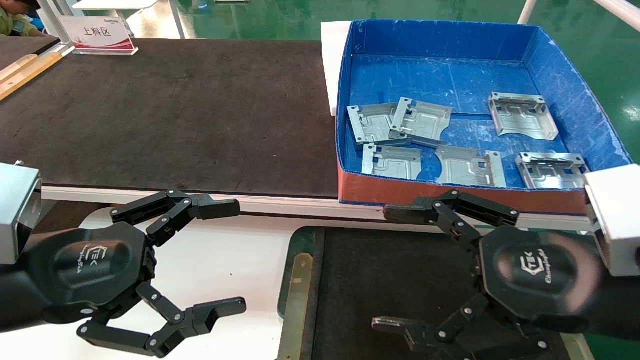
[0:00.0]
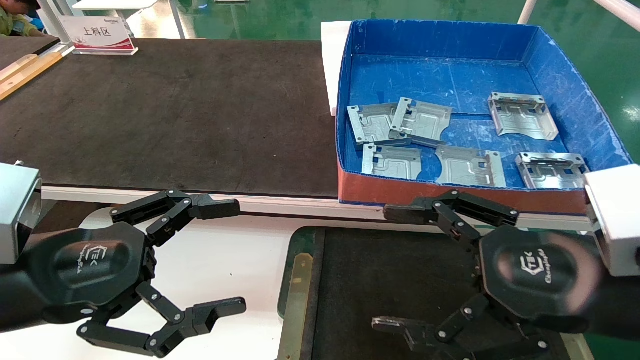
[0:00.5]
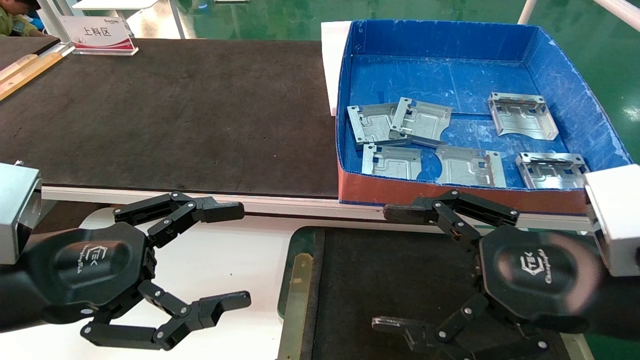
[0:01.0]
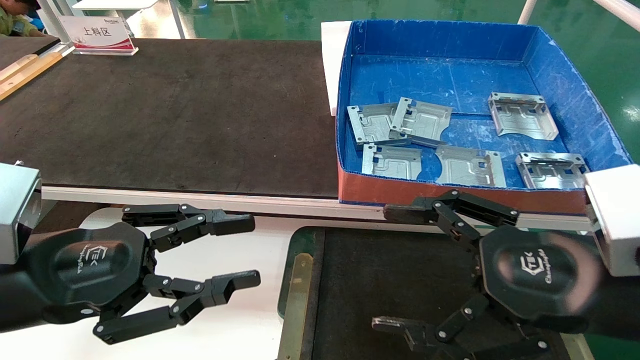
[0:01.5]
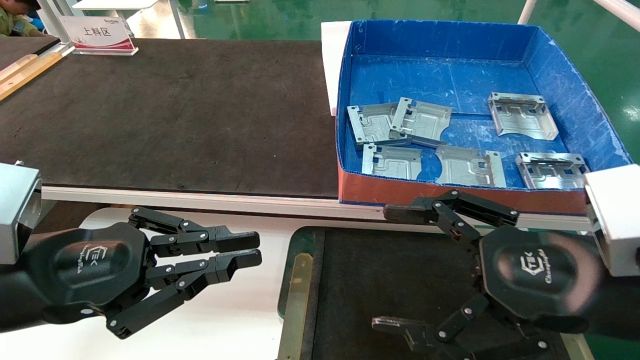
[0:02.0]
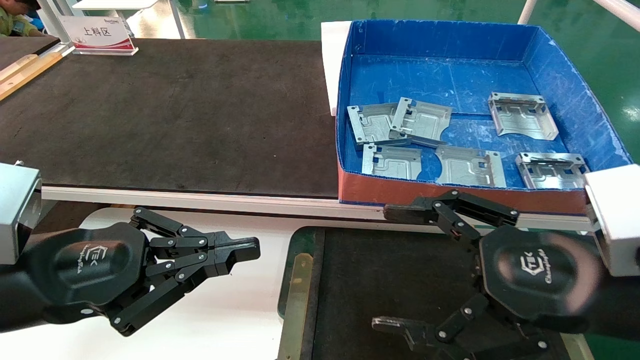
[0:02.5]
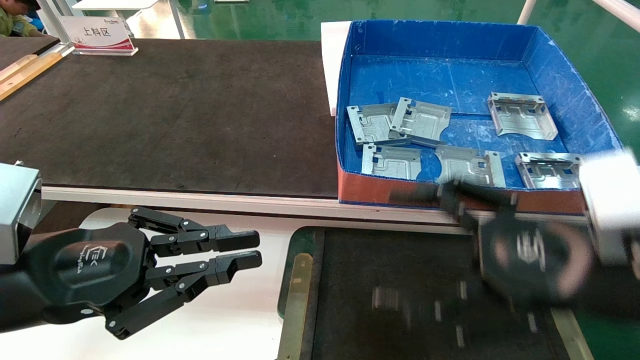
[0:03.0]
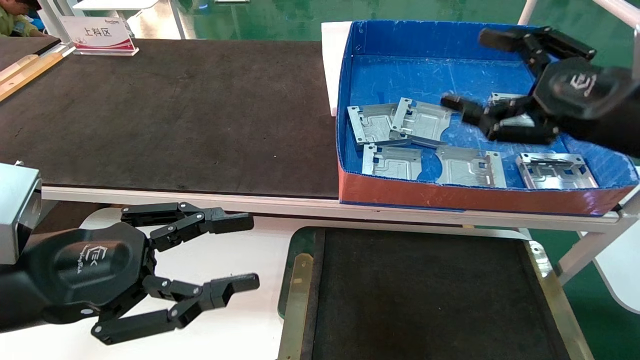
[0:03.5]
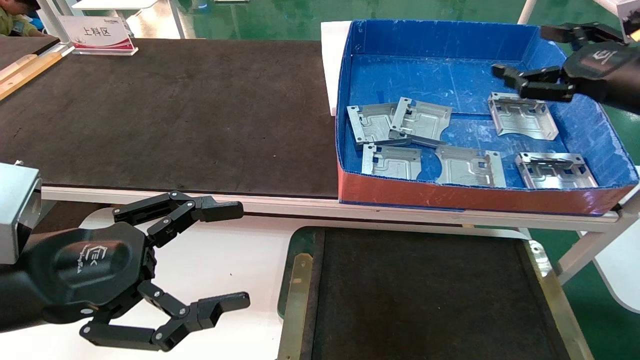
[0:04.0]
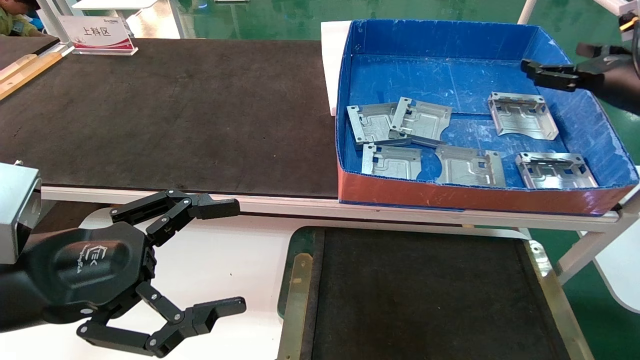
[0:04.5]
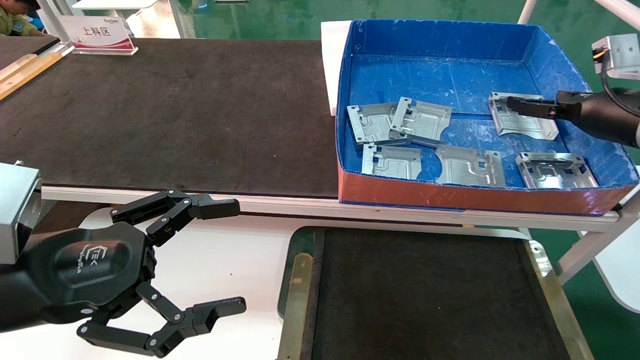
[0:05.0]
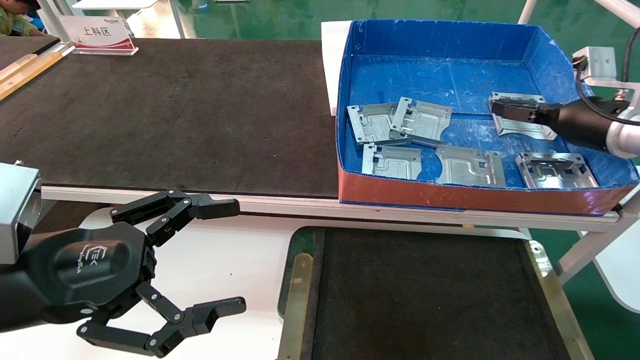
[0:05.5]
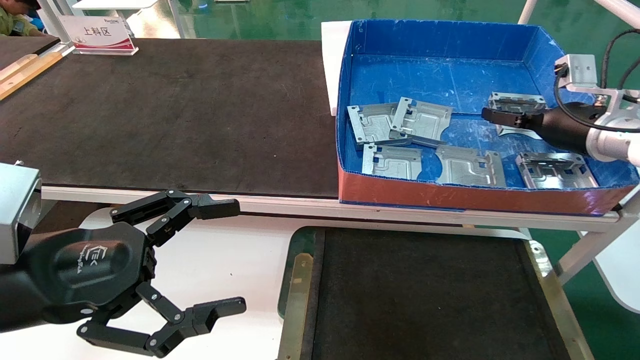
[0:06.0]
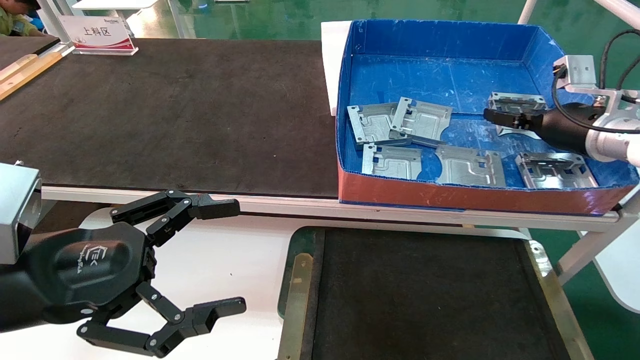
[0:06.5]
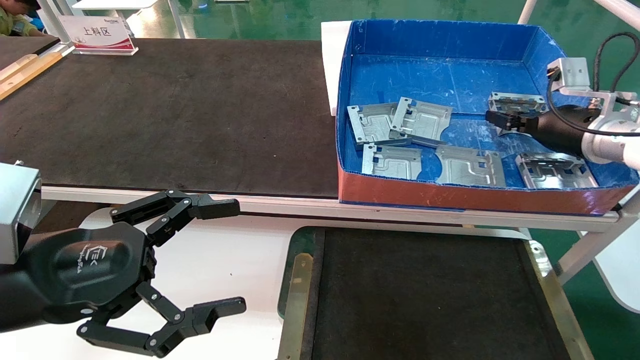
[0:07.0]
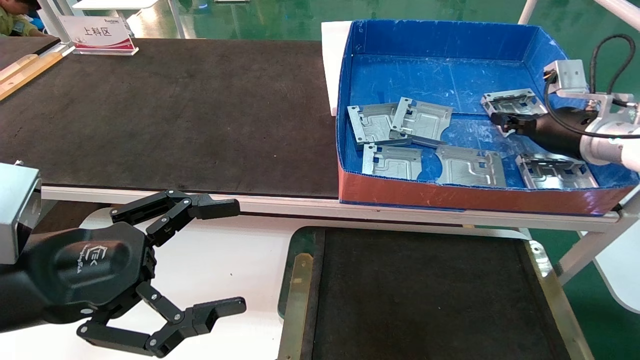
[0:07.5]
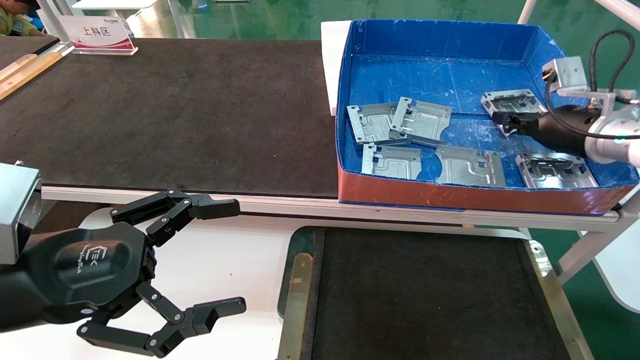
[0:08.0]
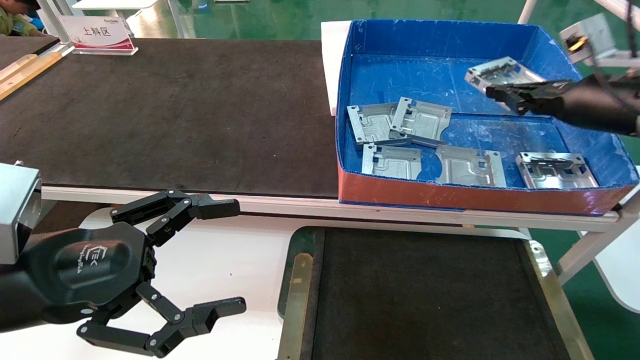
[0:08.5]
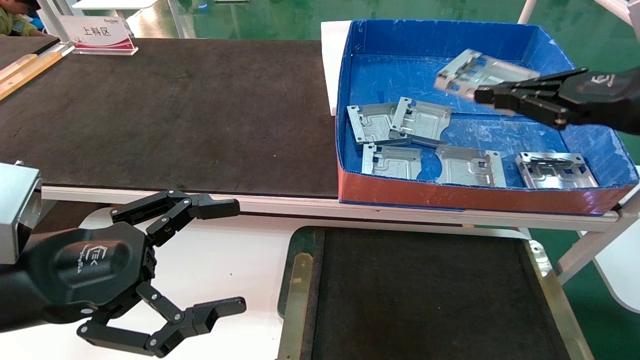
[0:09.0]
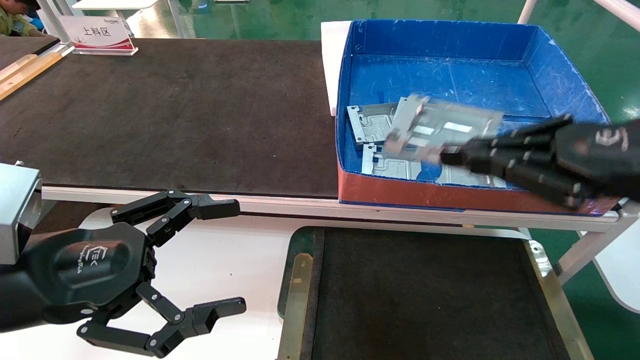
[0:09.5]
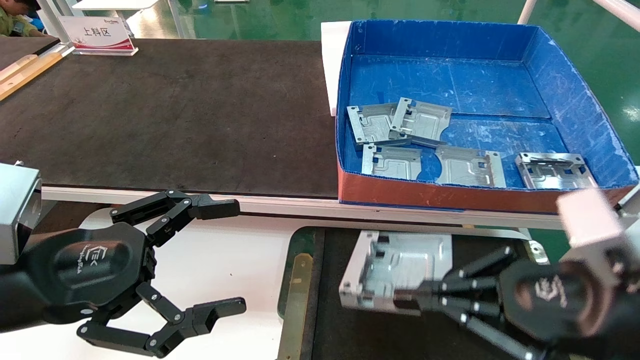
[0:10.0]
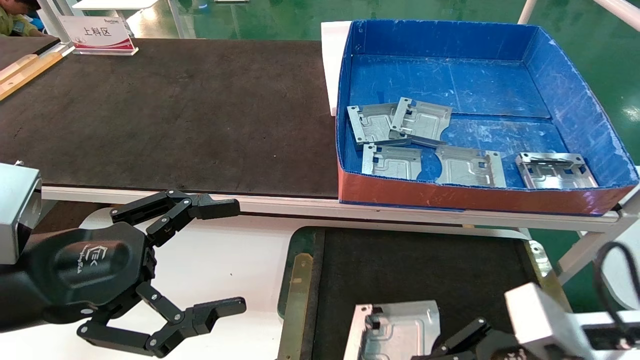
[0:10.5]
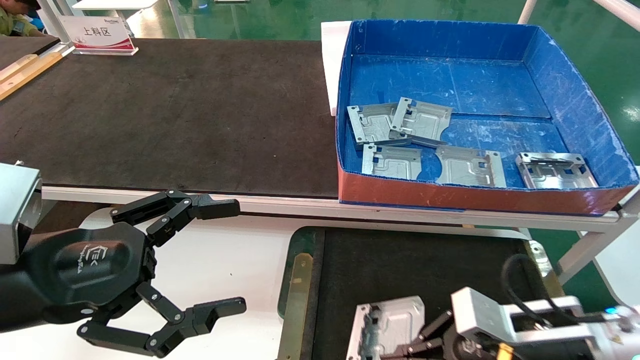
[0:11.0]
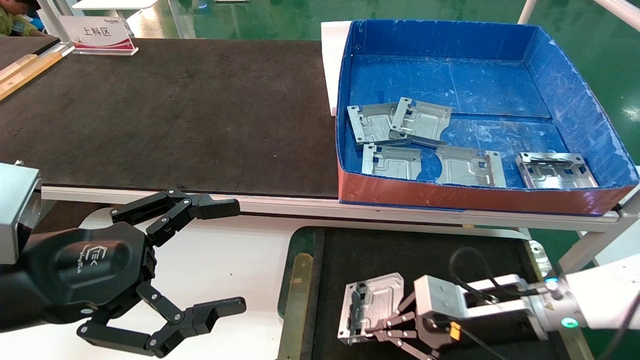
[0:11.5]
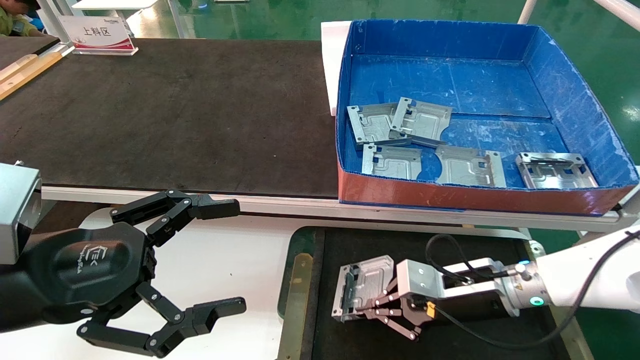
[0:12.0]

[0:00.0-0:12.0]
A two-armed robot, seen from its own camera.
Task of the whole recording: pick up parts and place them into a black container.
Step, 0:03.5 to 0:07.5: Pick up the hard drive bracket from the feeding area.
0:00.0 to 0:02.0: The left gripper closes.
0:02.0 to 0:04.0: The left gripper opens up, while the right gripper moves forward, to the right and upward, roughly 25 cm.
0:04.0 to 0:06.0: The right gripper heads forward and downward, covering some 10 cm.
0:06.0 to 0:08.0: The right gripper closes up.
0:08.0 to 0:10.0: The right gripper moves backward, about 25 cm.
0:10.0 to 0:12.0: The right gripper heads forward and downward, covering approximately 20 cm.

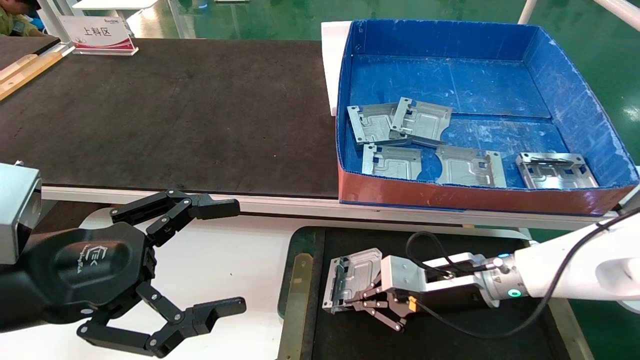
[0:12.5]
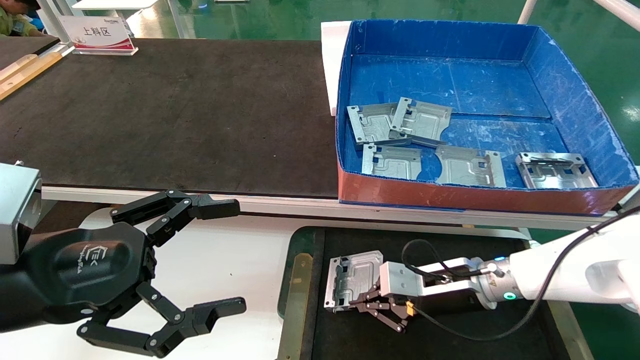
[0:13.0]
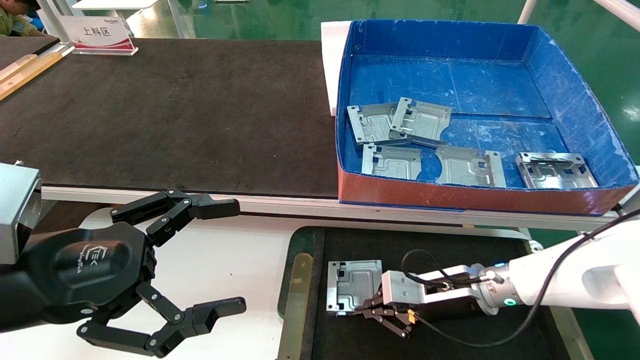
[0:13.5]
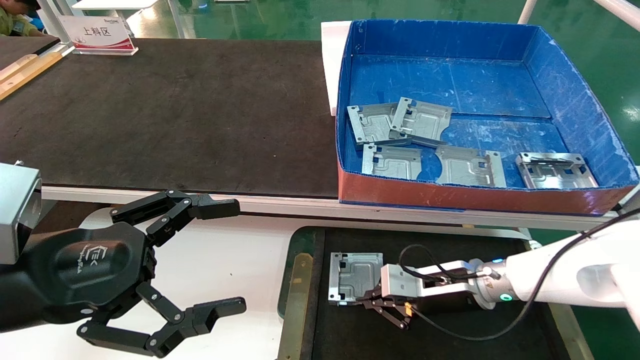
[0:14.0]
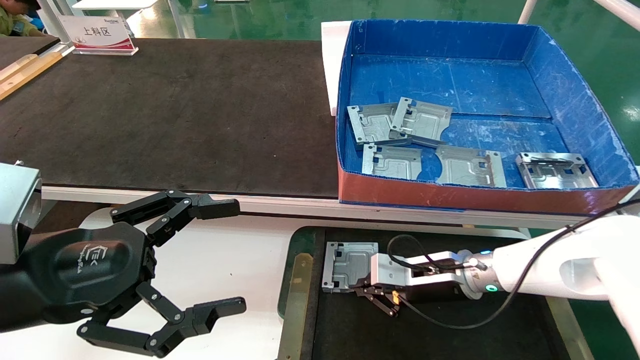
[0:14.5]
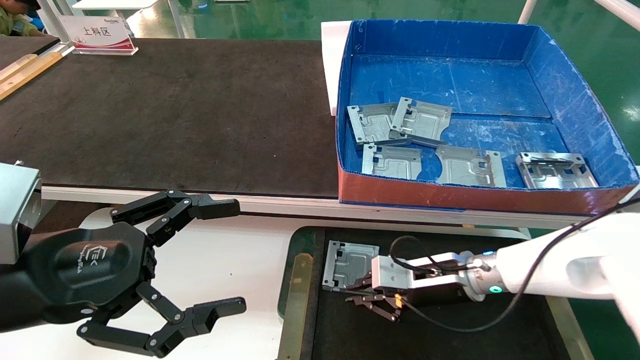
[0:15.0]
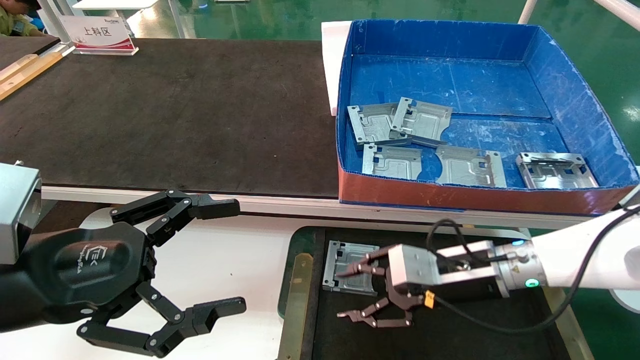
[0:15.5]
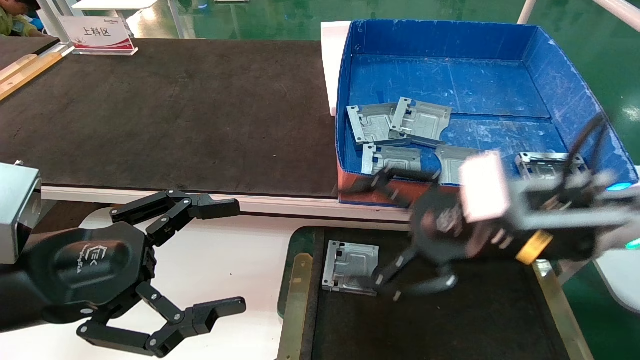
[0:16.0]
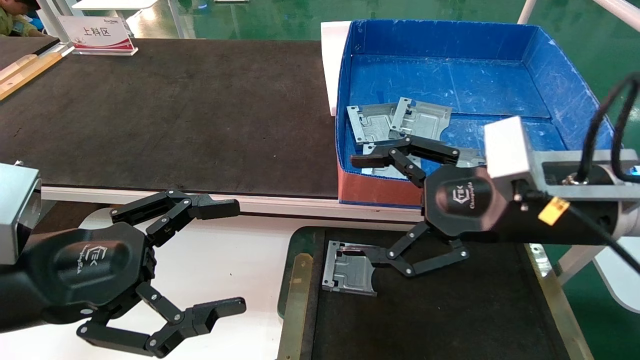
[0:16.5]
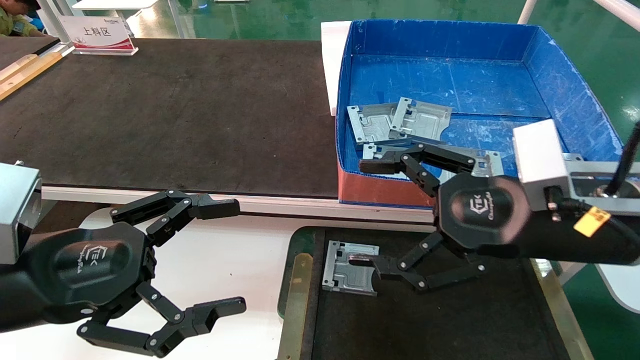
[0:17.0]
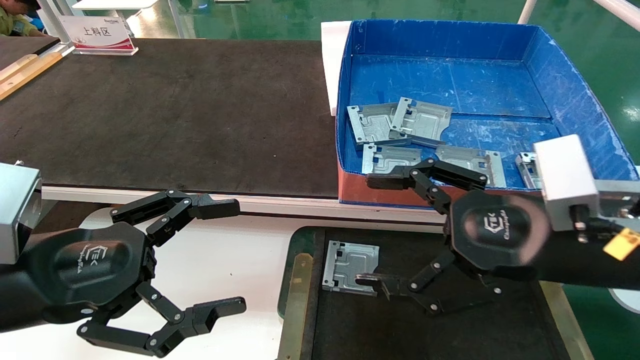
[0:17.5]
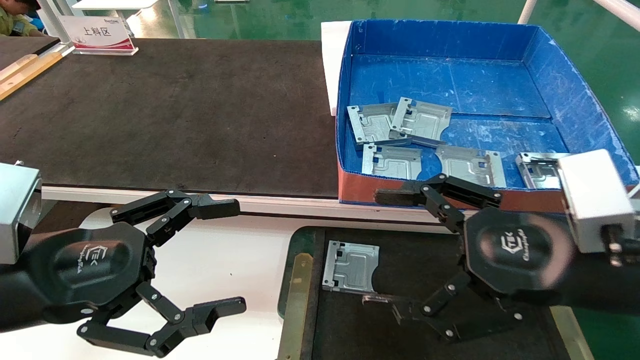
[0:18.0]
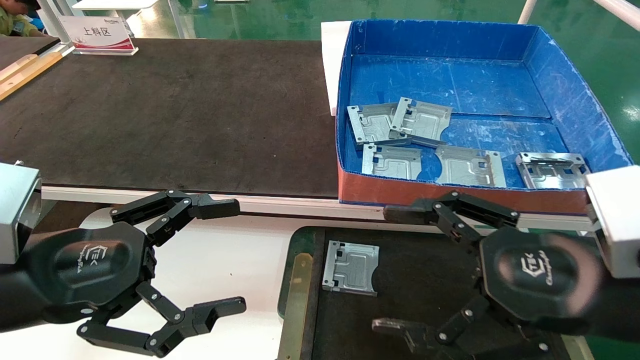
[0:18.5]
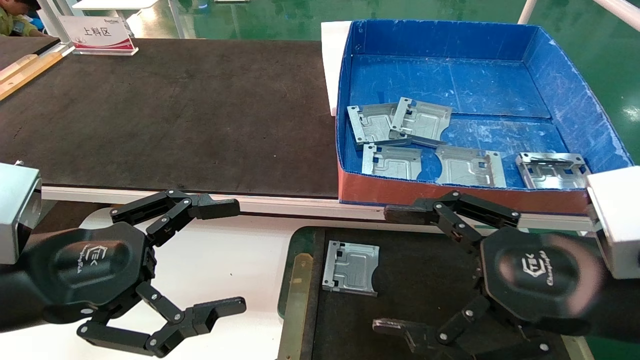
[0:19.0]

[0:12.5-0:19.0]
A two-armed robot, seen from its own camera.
Task of the whole recording: pick up parts and place them into a black container.
Step, 0:12.5 to 0:15.0: Place the hard drive bracket into the box.
0:12.5 to 0:14.5: The grippers move only a little.
0:14.5 to 0:17.0: The right gripper moves upward and backward, some 25 cm, and opens its fingers.
0:17.0 to 0:19.0: The right gripper is displaced backward by about 5 cm.
